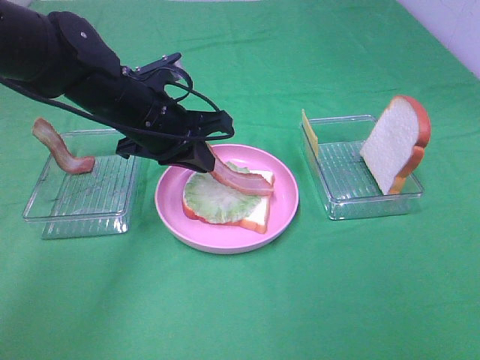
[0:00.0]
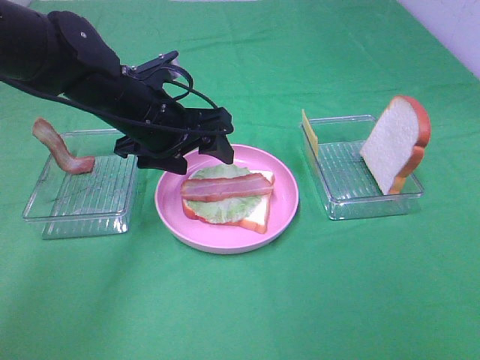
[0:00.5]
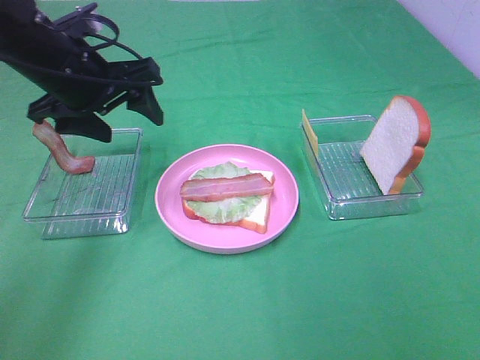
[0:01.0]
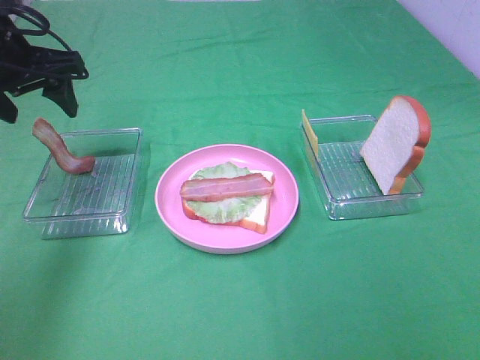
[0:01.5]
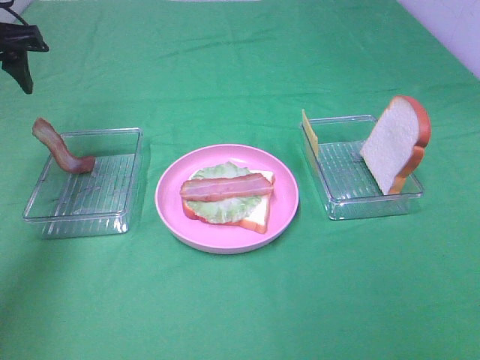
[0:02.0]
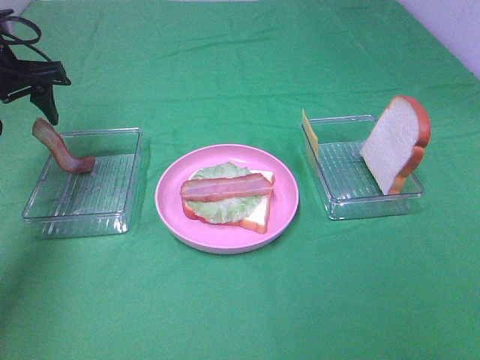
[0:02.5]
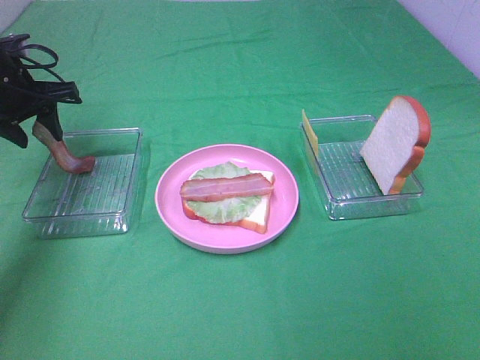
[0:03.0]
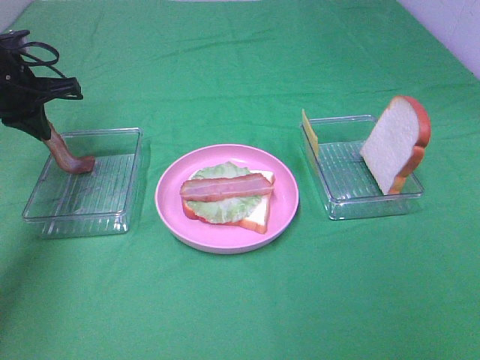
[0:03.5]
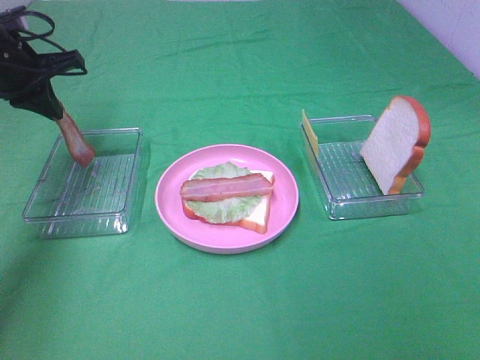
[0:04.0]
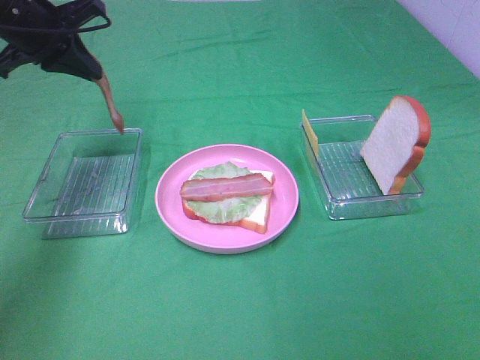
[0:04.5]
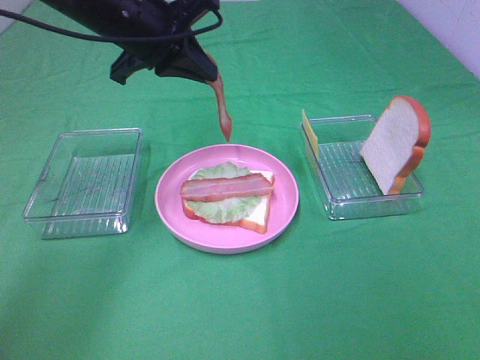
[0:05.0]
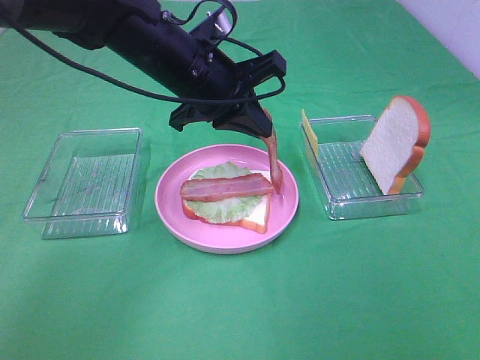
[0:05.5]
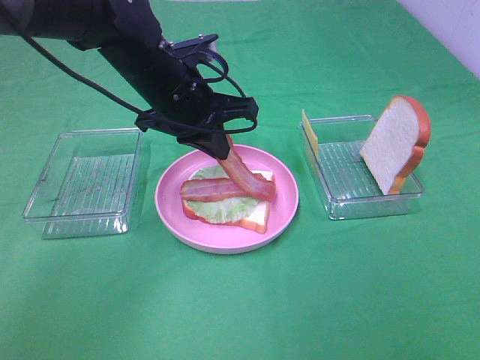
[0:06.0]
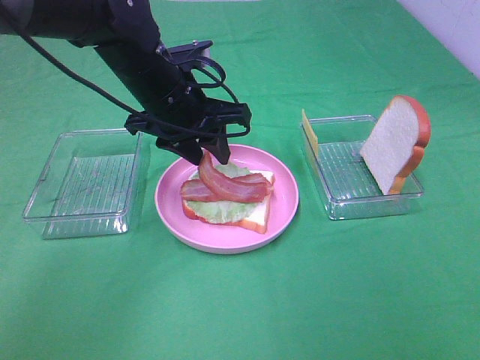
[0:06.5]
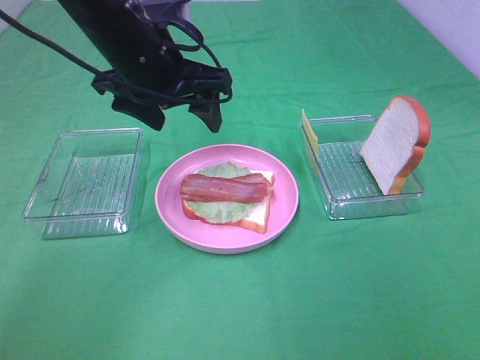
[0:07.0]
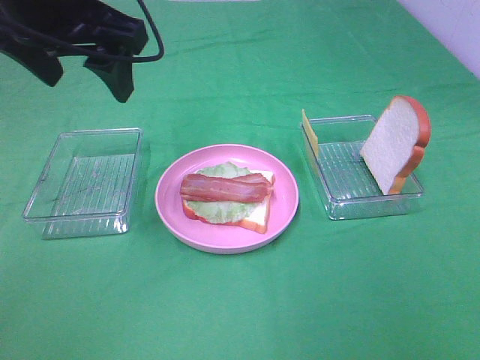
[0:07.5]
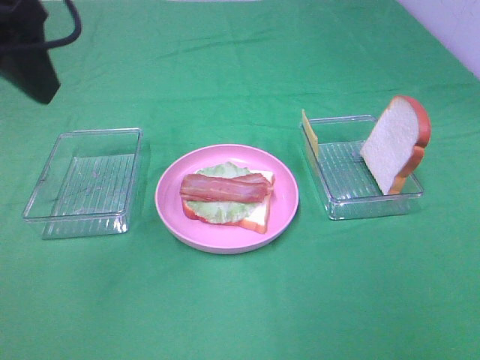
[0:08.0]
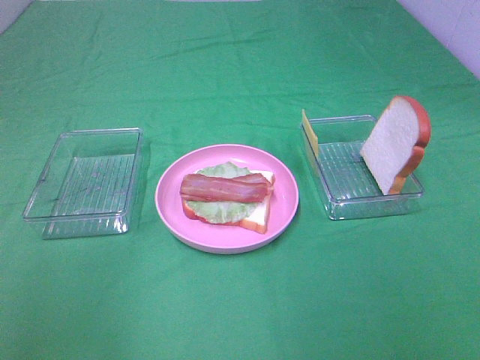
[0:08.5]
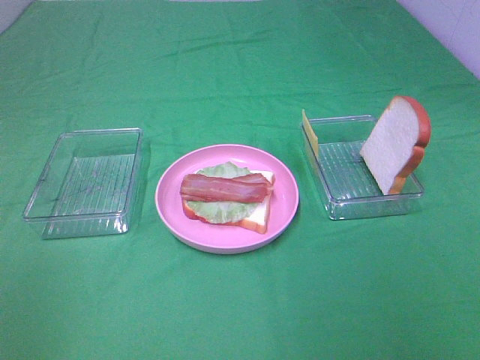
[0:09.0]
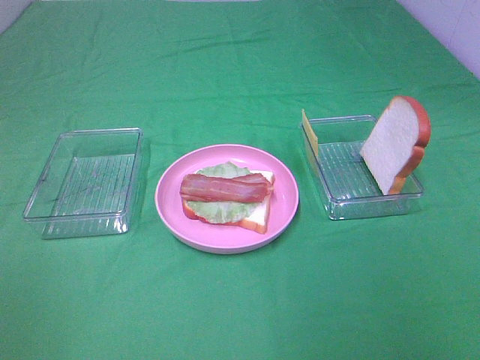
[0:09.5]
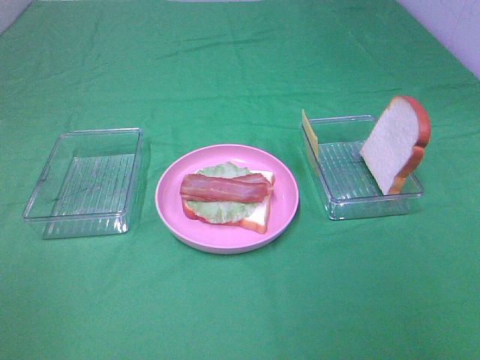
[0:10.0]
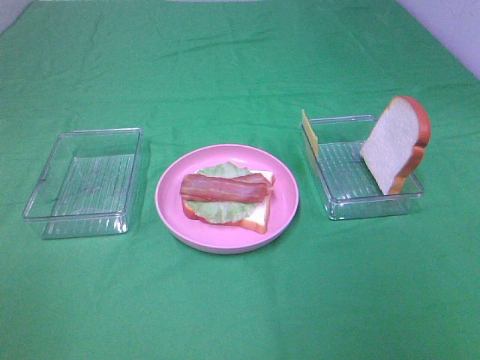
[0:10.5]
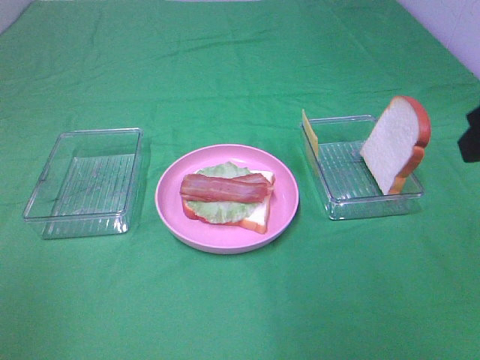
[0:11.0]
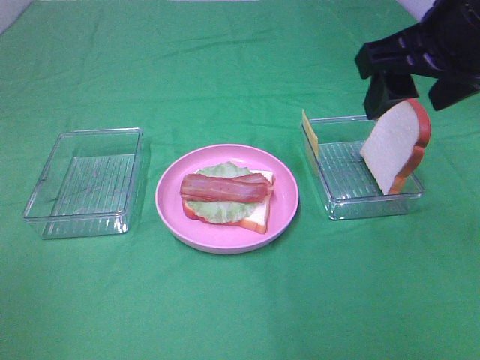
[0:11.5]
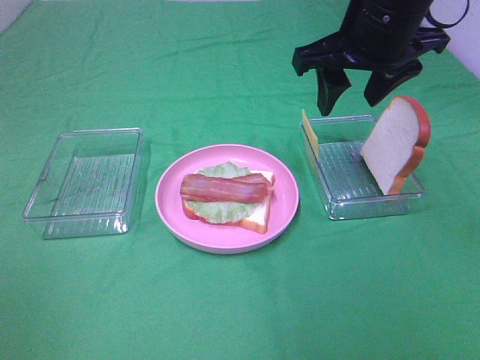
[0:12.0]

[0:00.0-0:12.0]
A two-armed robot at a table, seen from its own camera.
Task of the whole recording: Make sandwiches.
Step, 0:01.0 to 0:03.5: Left hand:grab the bacon.
Step, 0:04.0 to 0:06.5: Left hand:place bacon on bacon.
0:00.0 to 0:02.0: The left gripper heads to the left and upward, covering approximately 20 cm, and opens.
0:02.0 to 0:04.0: The left gripper shifts approximately 5 cm downward, and closes up.
0:04.0 to 0:06.0: The left gripper heads to the right, covering some 20 cm.
0:06.0 to 0:08.0: The left gripper goes about 25 cm upward, backward and to the left, and opens its fingers.
0:08.0 to 0:10.0: The left gripper shifts roughly 25 cm backward, to the left and downward.
0:10.0 to 0:12.0: The right gripper heads forward and to the left, covering about 40 cm.

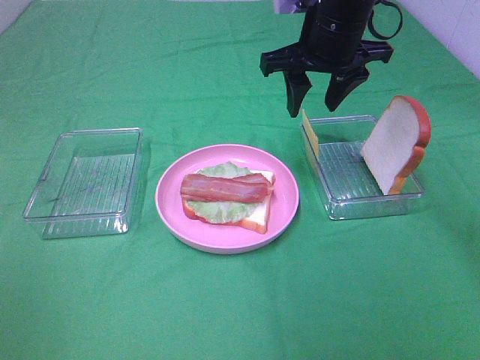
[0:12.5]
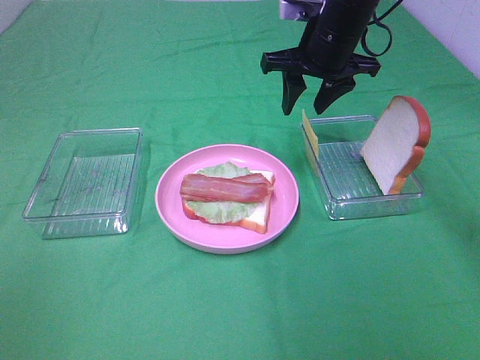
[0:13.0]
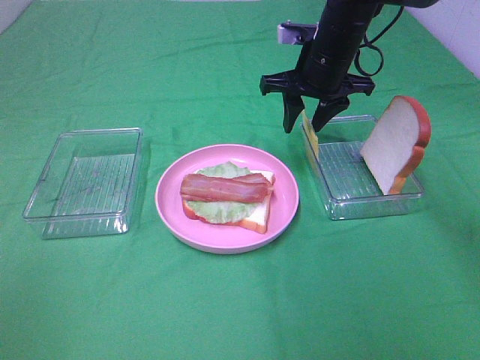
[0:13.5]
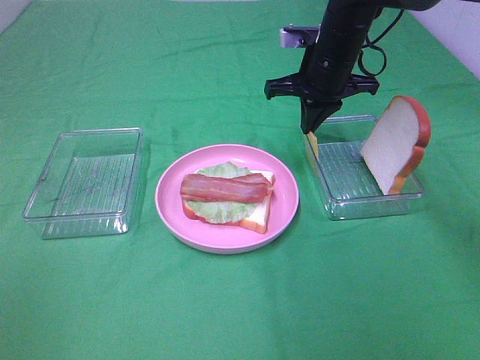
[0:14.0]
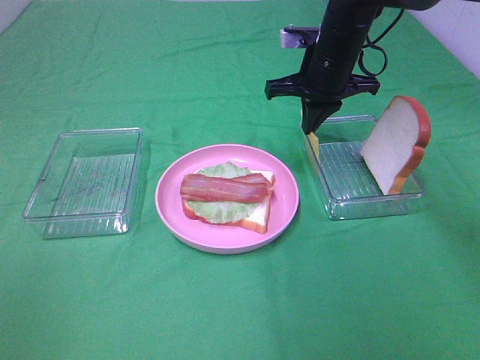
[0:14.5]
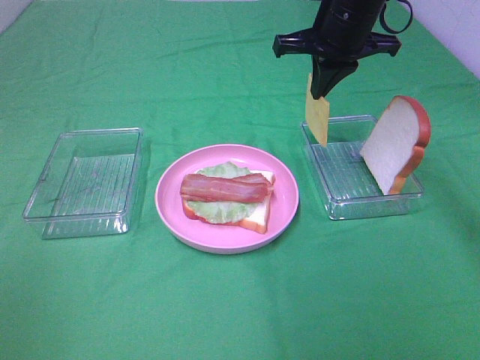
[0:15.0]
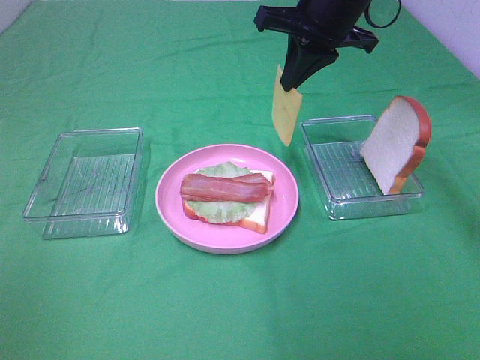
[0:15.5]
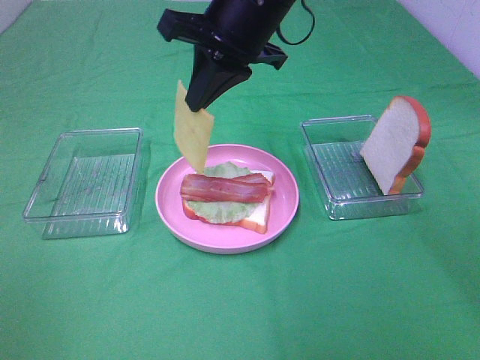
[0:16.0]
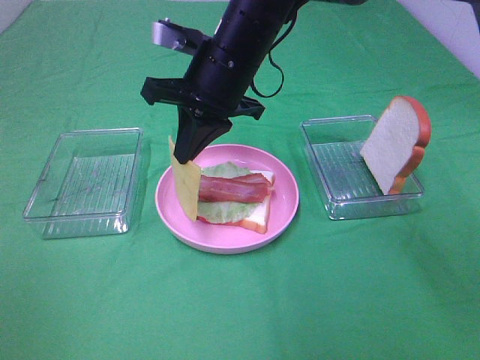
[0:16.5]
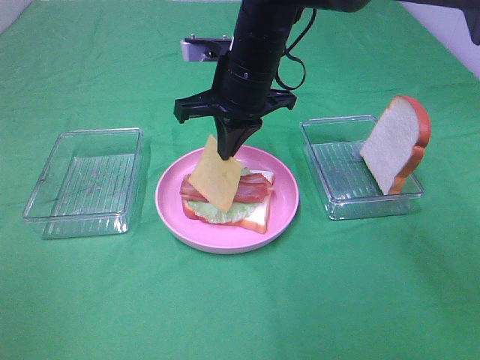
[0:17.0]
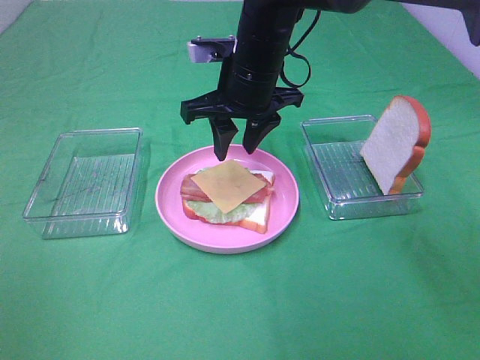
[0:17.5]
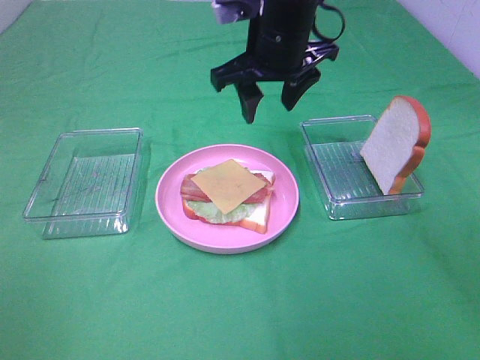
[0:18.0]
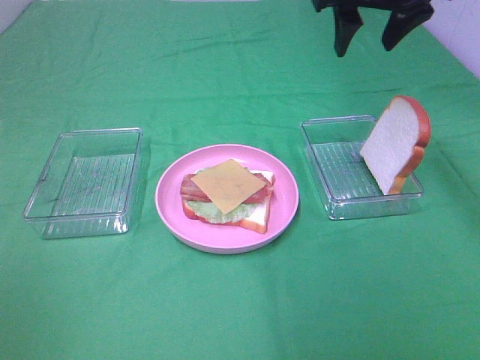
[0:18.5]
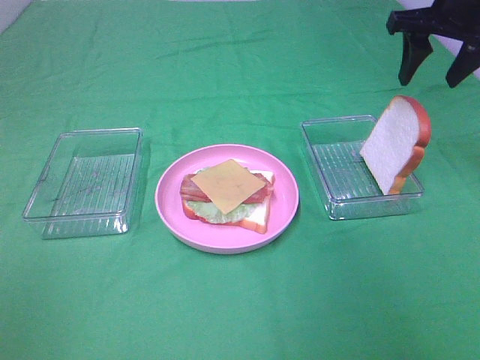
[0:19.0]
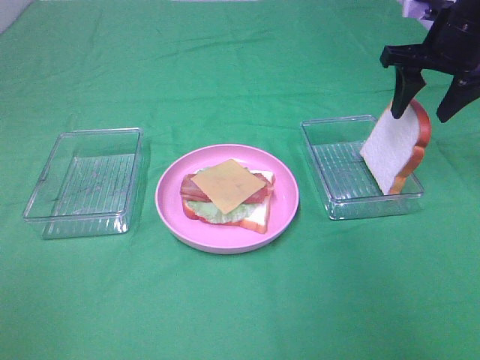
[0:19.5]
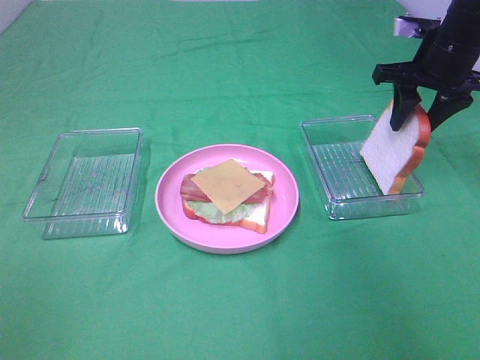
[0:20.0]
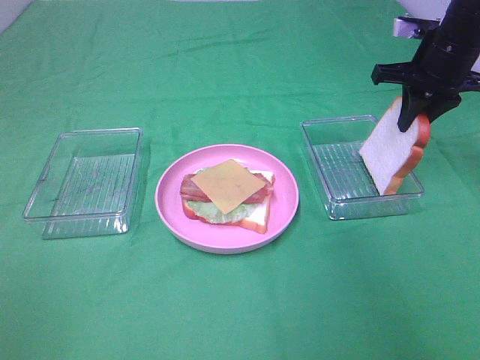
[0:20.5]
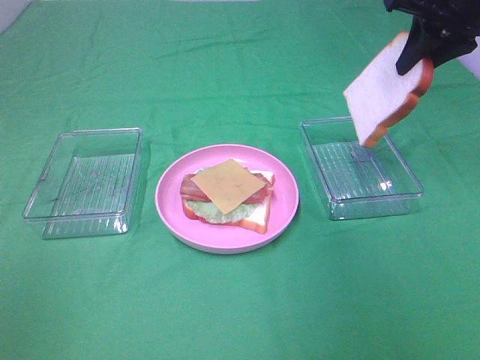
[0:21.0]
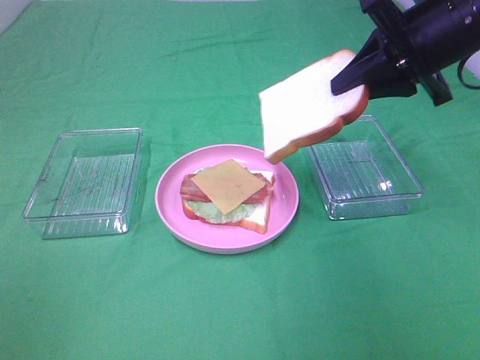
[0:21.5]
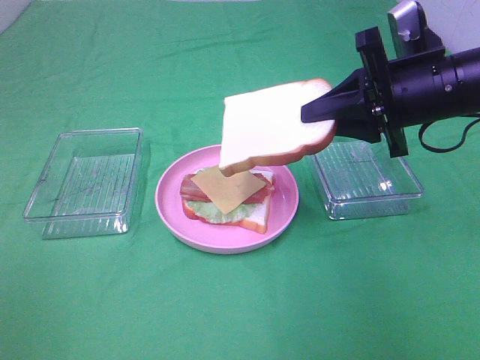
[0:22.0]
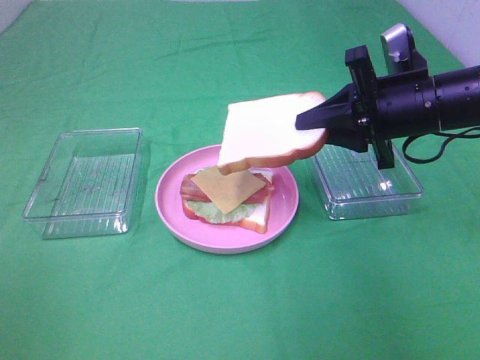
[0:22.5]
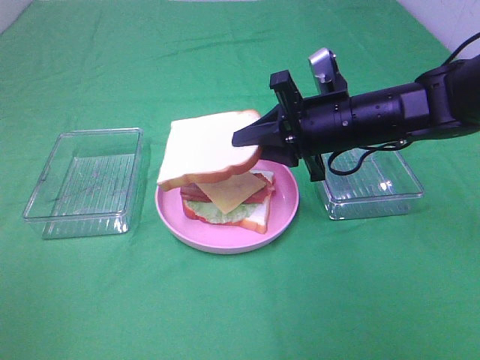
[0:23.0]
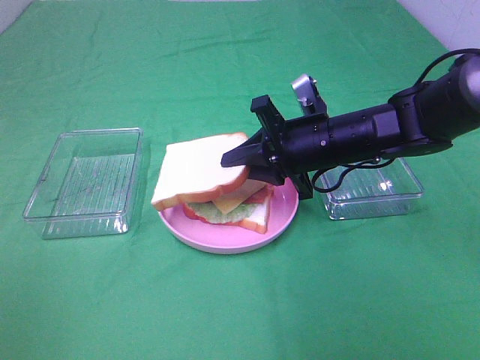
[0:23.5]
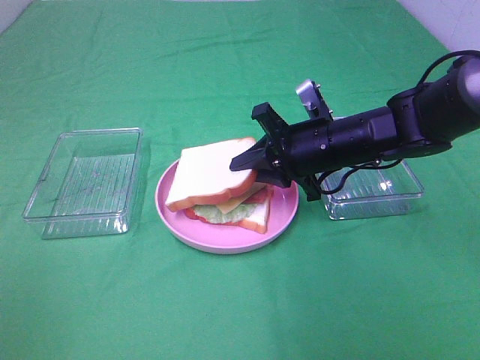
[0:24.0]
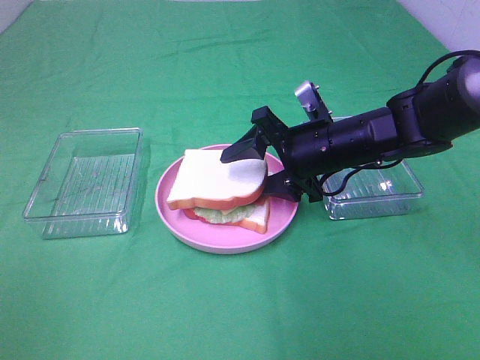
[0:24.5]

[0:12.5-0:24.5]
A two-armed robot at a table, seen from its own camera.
Task of the whole recording: Make sandwiches.
Step, 0:12.5 to 0:14.5: Right hand:grab the cheese slice.
Step, 0:15.0 to 0:17.5: Right hand:place the cheese slice on top of the bacon.
Step, 0:18.0 to 0:20.0: Right hand:grab the bread slice.
0:12.5 to 0:14.5: The right gripper goes approximately 5 cm downward, and closes its fingers.
0:14.5 to 0:16.5: The right gripper goes roughly 15 cm to the left and backward.
0:16.5 to 0:18.5: The right gripper goes approximately 20 cm to the right and upward, and opens.
0:18.5 to 0:20.5: The right gripper moves downward and to the right, some 15 cm, and closes up.
0:20.5 to 0:22.5: The right gripper shifts about 10 cm backward and to the left.
0:22.5 to 0:24.5: The right gripper moves to the left and downward, some 10 cm, and opens up.

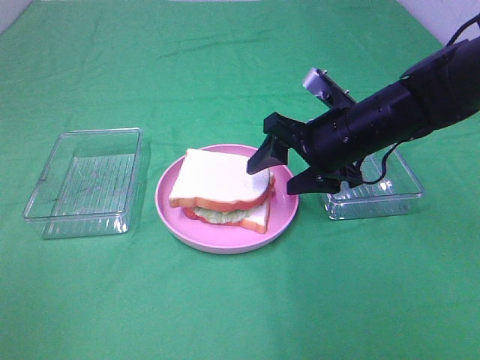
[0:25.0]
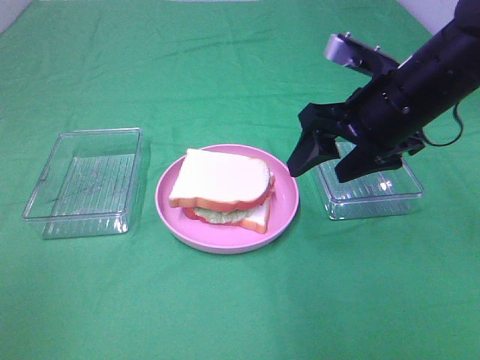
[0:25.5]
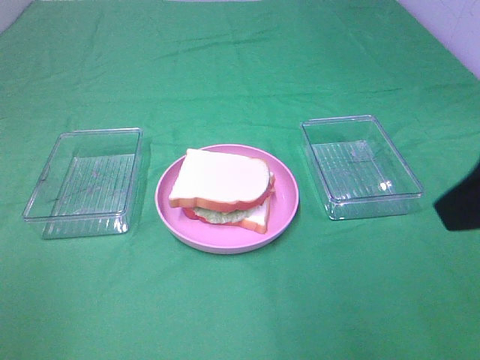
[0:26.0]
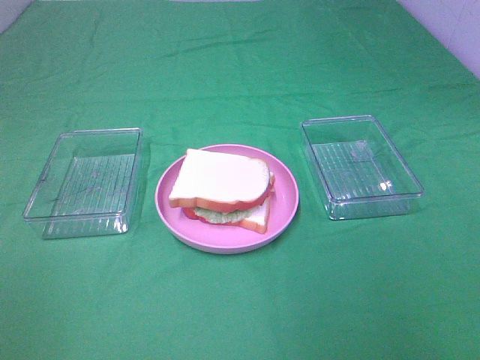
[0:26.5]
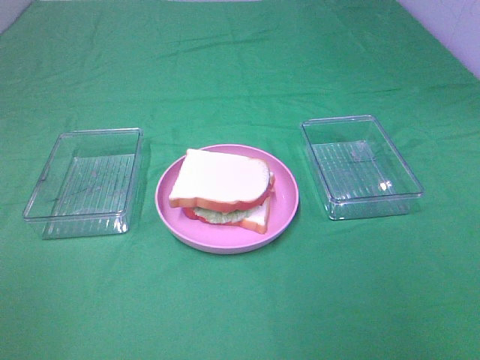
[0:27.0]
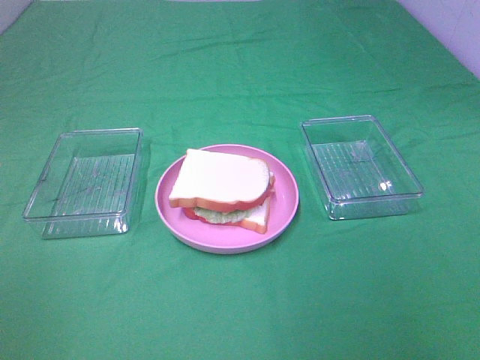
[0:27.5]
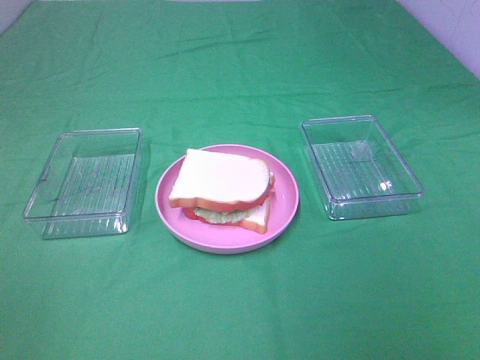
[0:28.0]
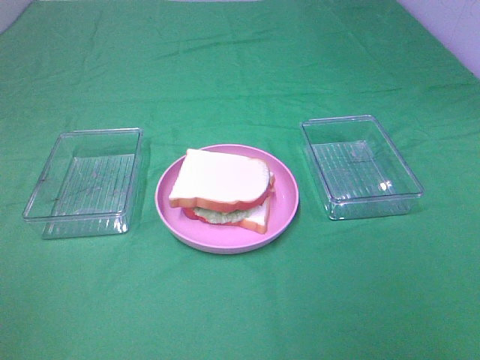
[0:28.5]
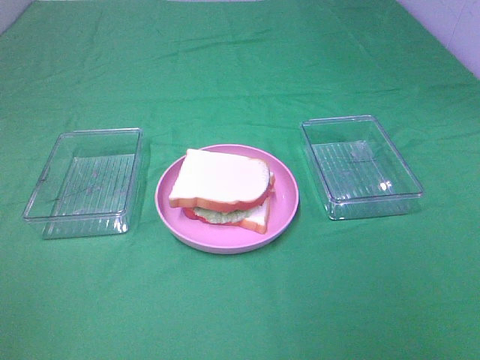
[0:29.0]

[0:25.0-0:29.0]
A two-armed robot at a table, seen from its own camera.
Task of the whole recording: Make sandwiches.
0:25.0 to 0:27.0: The right gripper shifts roughly 40 cm backward, upward and to the right.
